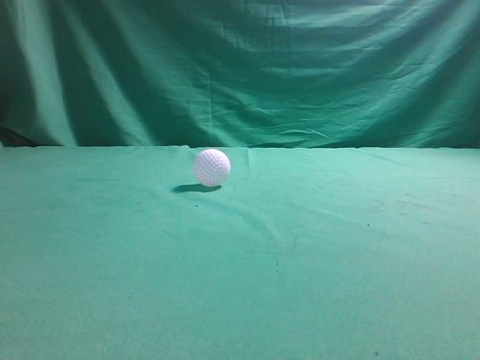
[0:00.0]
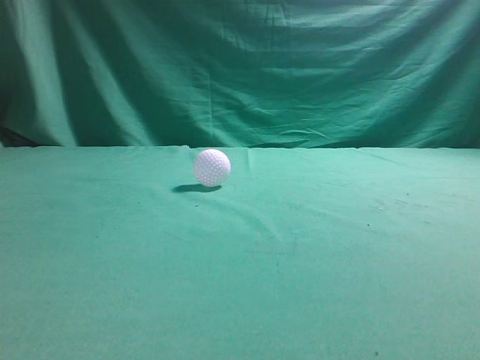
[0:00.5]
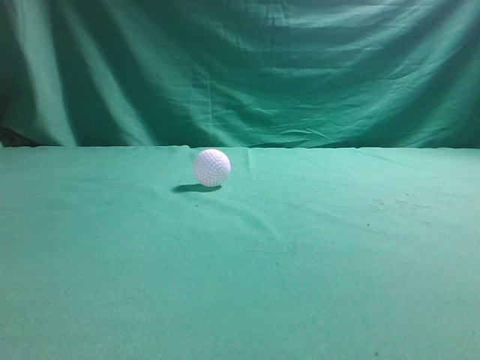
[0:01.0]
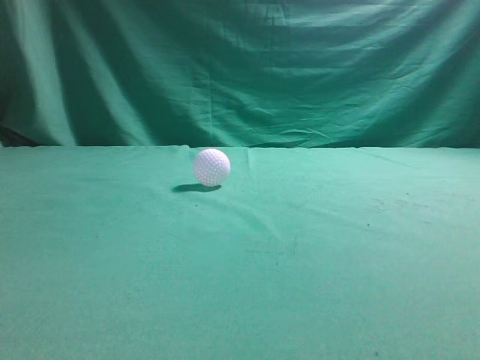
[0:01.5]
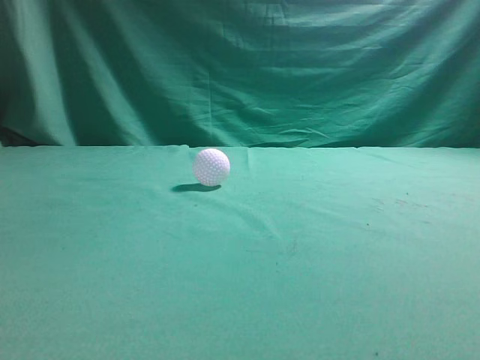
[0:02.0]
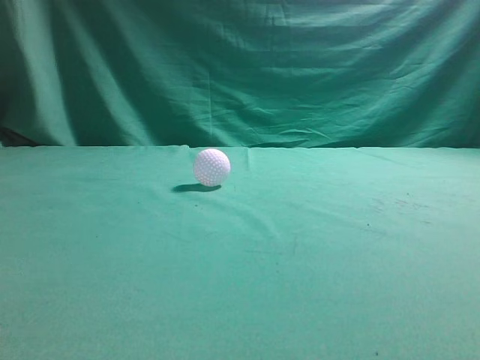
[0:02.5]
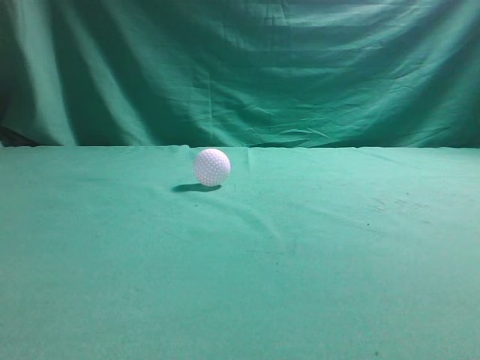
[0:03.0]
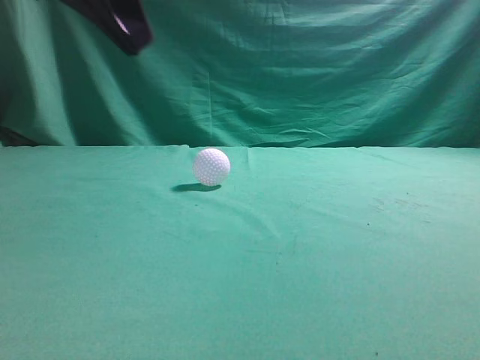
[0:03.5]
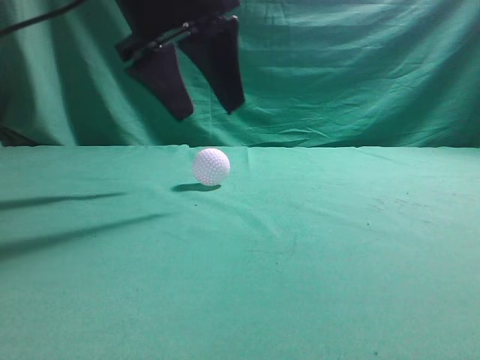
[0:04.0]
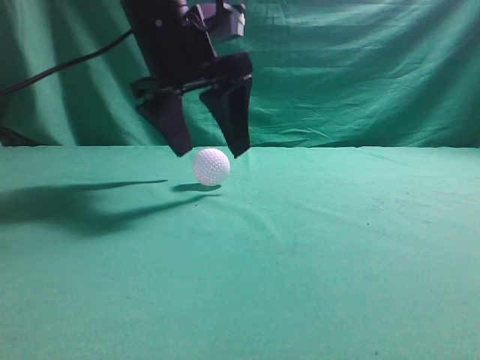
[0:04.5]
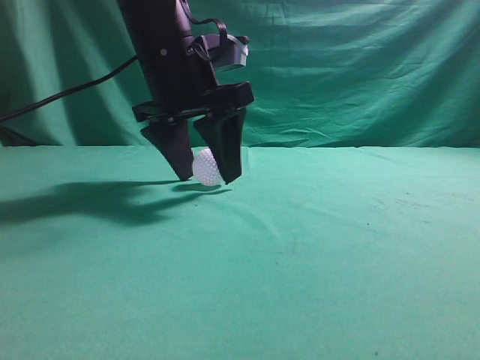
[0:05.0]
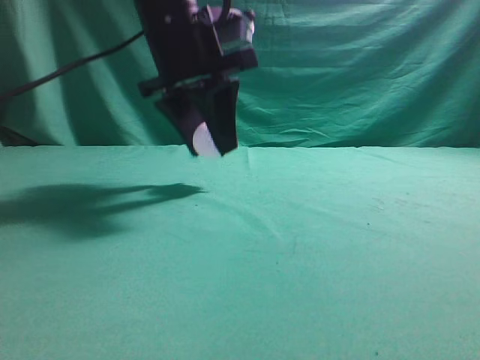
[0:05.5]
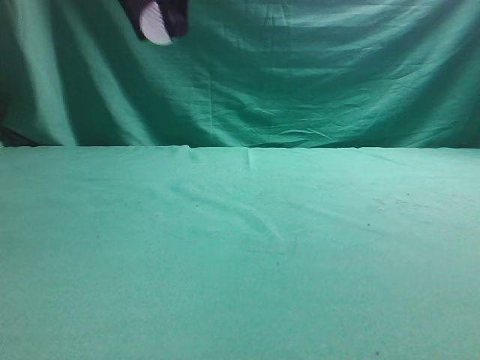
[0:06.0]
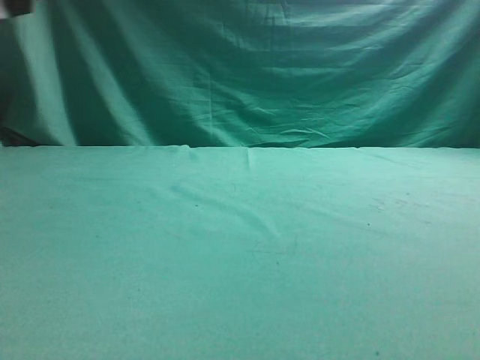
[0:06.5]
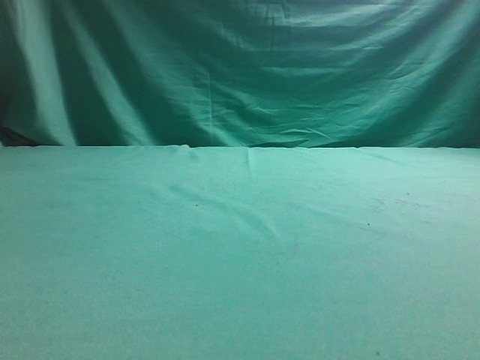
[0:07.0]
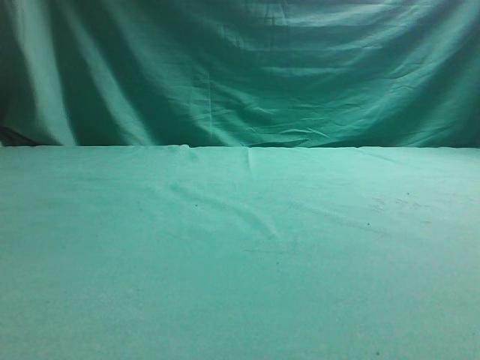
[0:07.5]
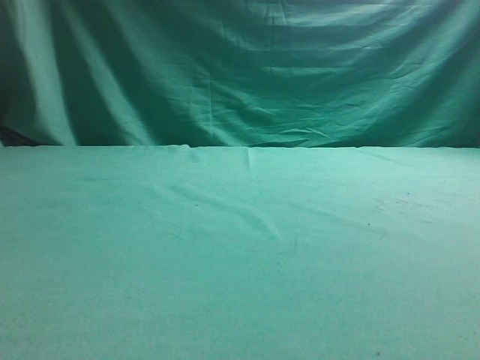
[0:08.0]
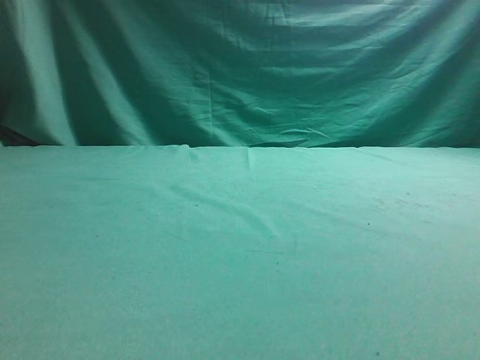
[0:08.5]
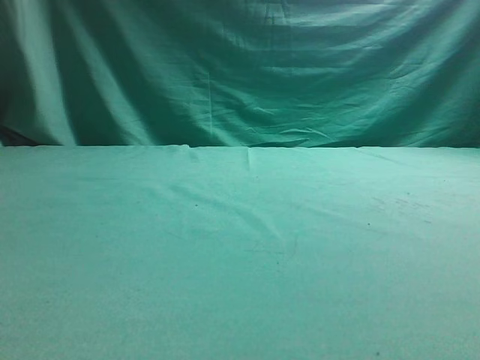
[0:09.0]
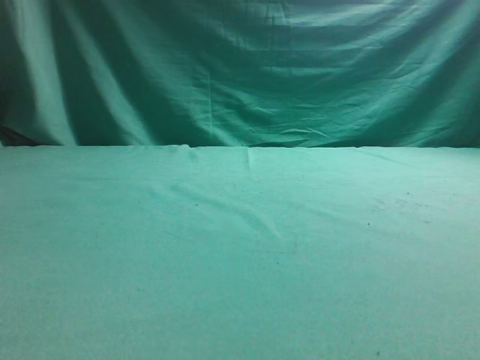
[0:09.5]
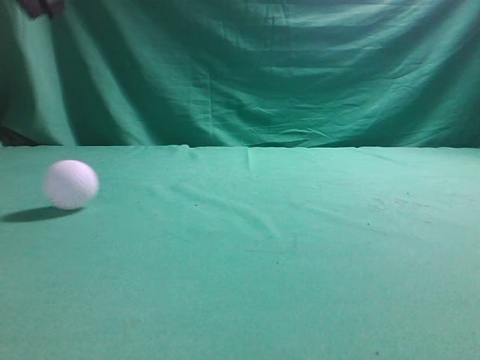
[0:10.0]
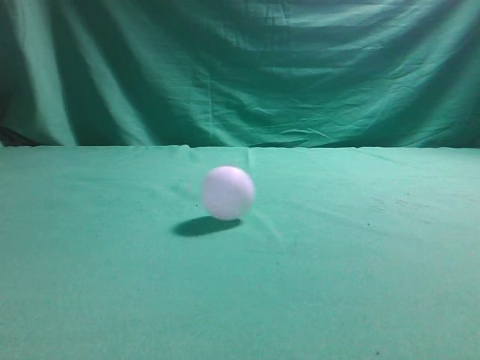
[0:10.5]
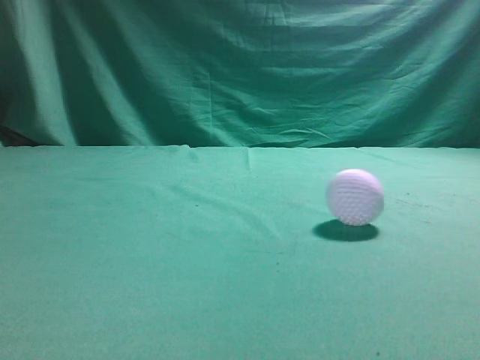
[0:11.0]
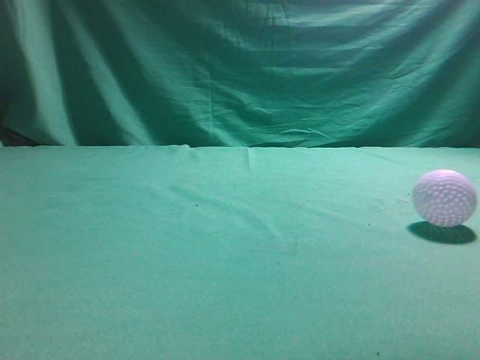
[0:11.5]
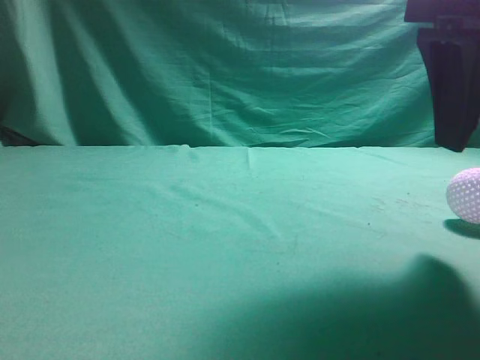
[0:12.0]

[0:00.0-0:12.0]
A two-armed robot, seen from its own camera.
Task of the whole recording: pick up the ball and place it on the plate, then pick up the ball from the plate and put it in the center of the table.
Step, 0:00.0 to 0:05.5: Grab the spherical object with your left arm.
Step, 0:06.0 to 0:09.0: Place the sphere on the white object.
0:02.0 to 0:04.0: The left gripper travels forward and to the right by about 35 cm, and opens up.
0:04.0 to 0:06.0: The left gripper heads upward, covering roughly 10 cm.
0:06.0 to 0:08.0: The left gripper is displaced to the left by approximately 25 cm.
0:08.0 to 0:10.0: The left gripper travels to the right and upward by some 15 cm, and opens and closes again.
0:10.0 to 0:12.0: The left gripper moves backward, about 30 cm, while the right gripper heads forward, to the left and downward, covering some 15 cm, and opens its fingers.

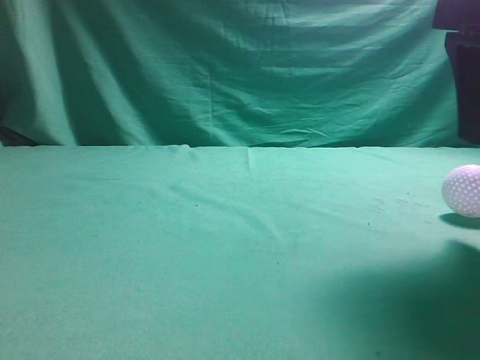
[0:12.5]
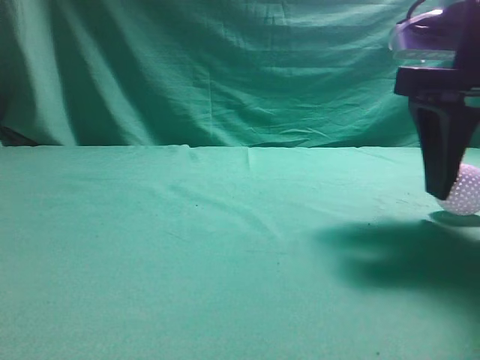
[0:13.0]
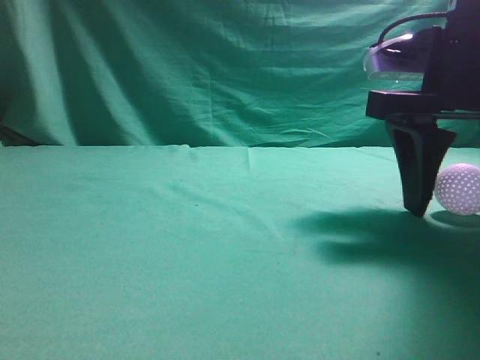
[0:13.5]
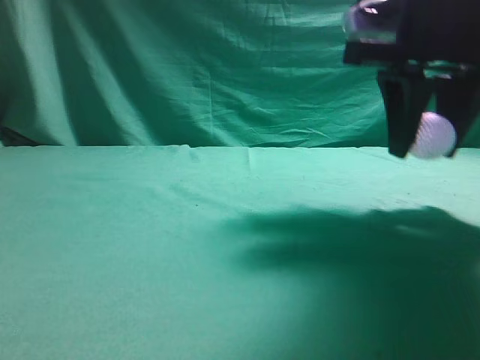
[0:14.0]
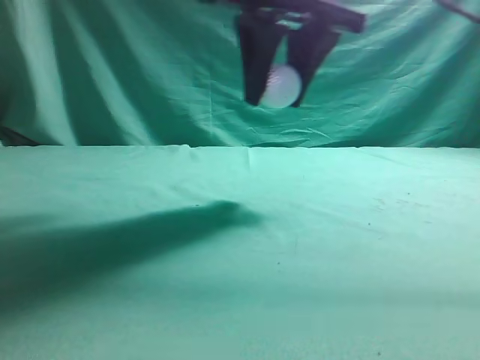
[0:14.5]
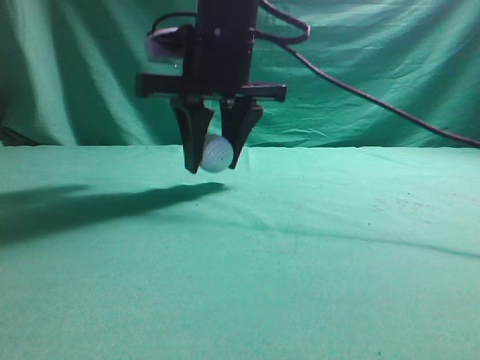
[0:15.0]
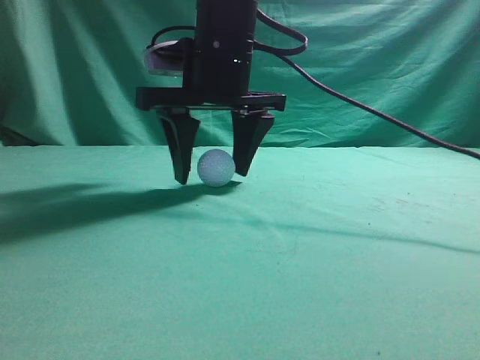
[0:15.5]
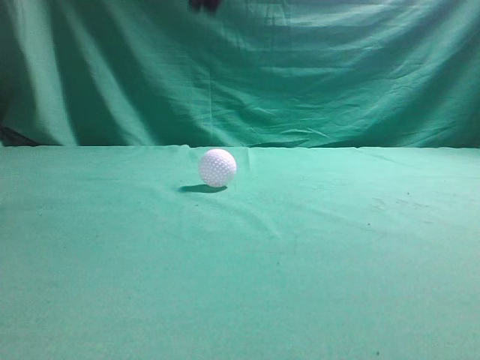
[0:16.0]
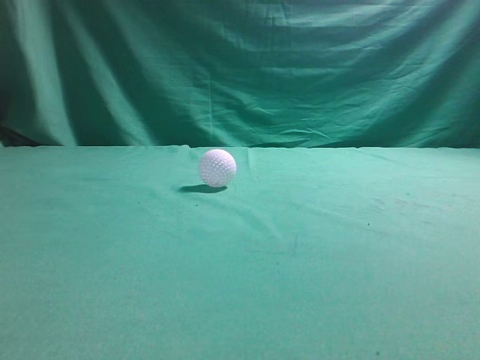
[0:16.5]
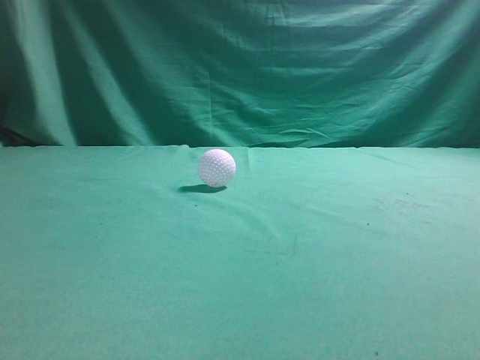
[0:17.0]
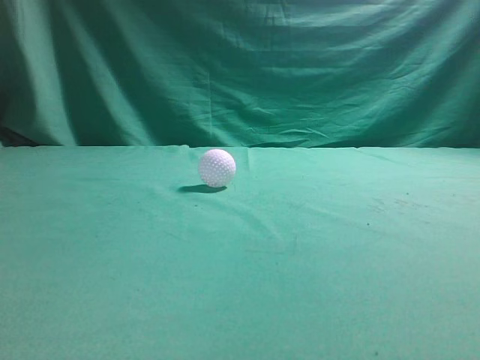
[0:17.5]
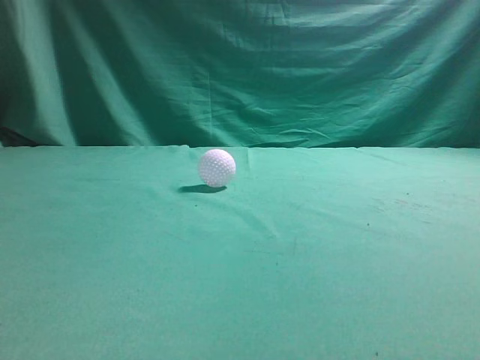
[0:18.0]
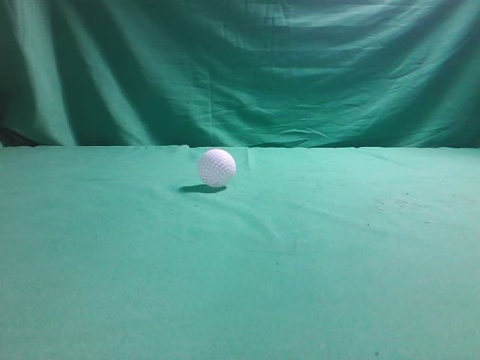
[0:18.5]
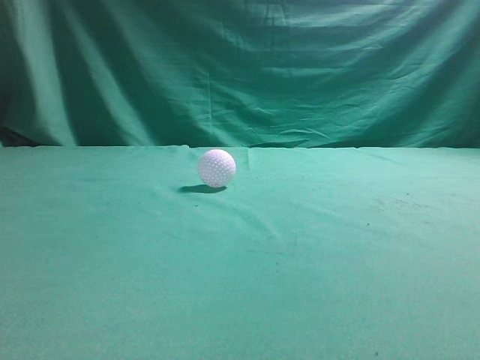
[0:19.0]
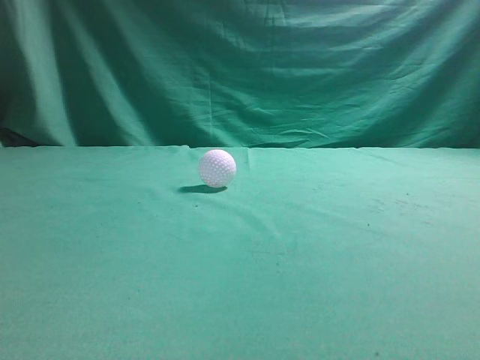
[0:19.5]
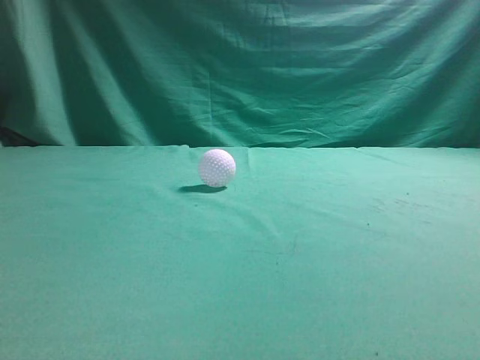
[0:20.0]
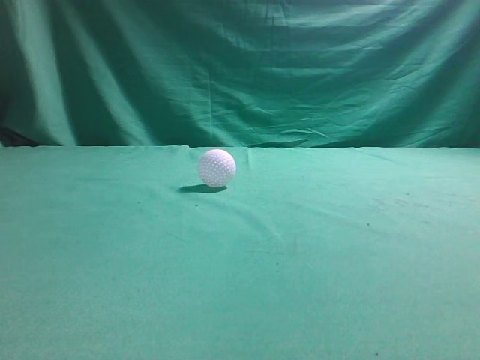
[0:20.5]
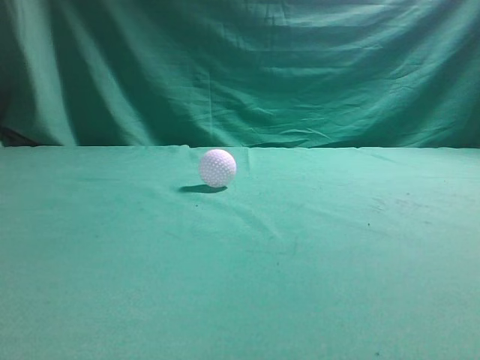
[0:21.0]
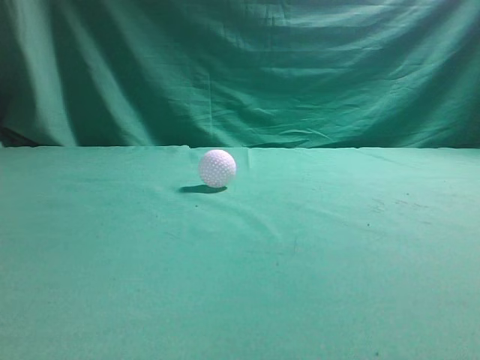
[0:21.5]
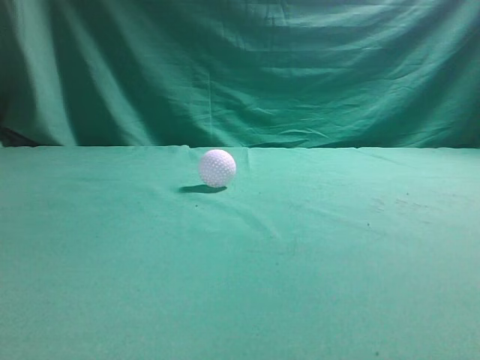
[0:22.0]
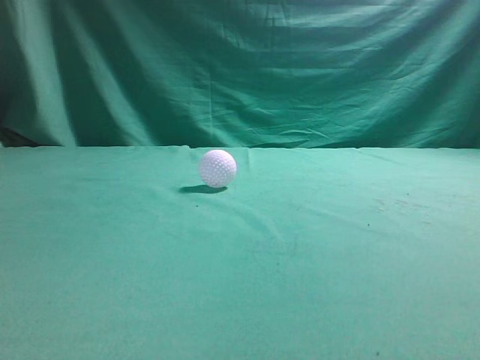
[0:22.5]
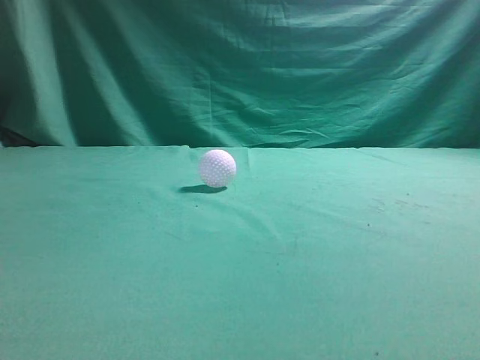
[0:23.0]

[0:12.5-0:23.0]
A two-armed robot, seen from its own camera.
Task of the whole recording: pick up the ball and place it on the plate, then pick up the ball from the plate and put it in the center of the table.
Step, 0:14.5 to 0:15.5: Put the picked-up object on the table.
0:12.5 to 0:14.5: The right gripper shifts some 15 cm to the left and forward, and closes.
0:14.5 to 0:16.5: The right gripper is displaced upward by about 20 cm, and closes its fingers.
